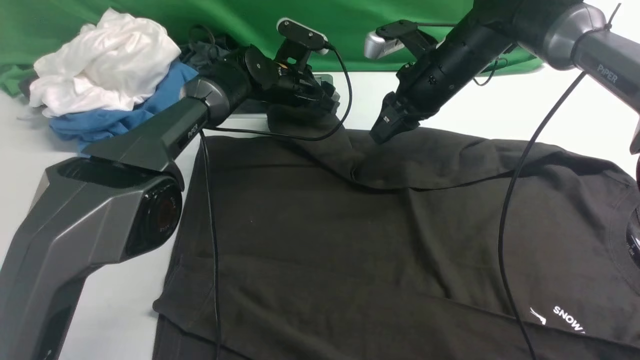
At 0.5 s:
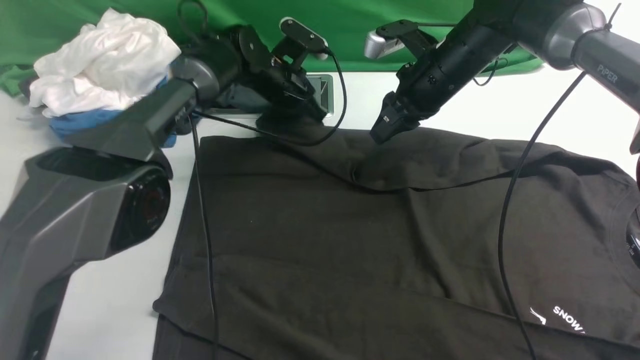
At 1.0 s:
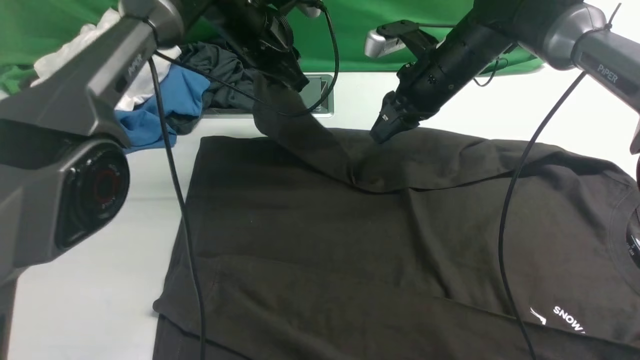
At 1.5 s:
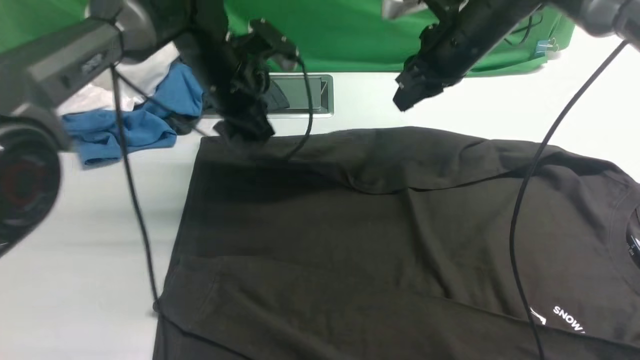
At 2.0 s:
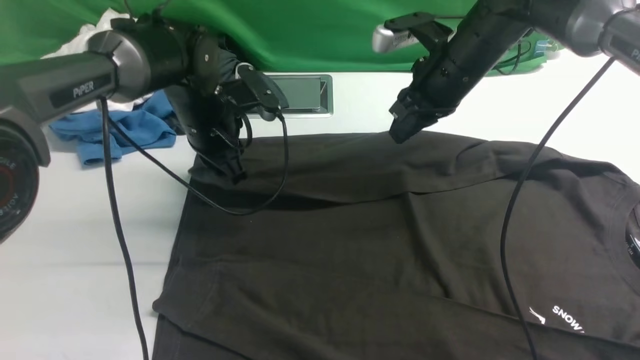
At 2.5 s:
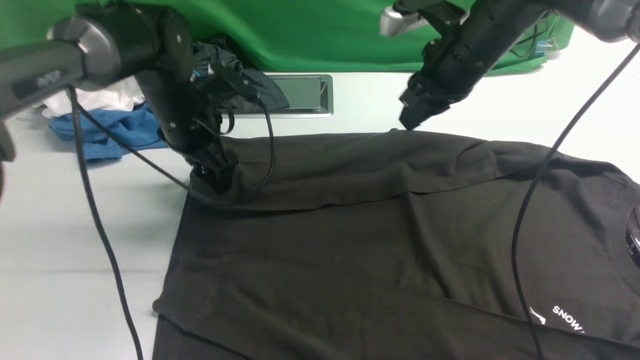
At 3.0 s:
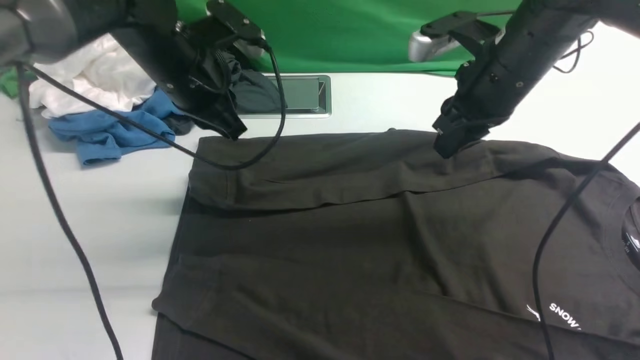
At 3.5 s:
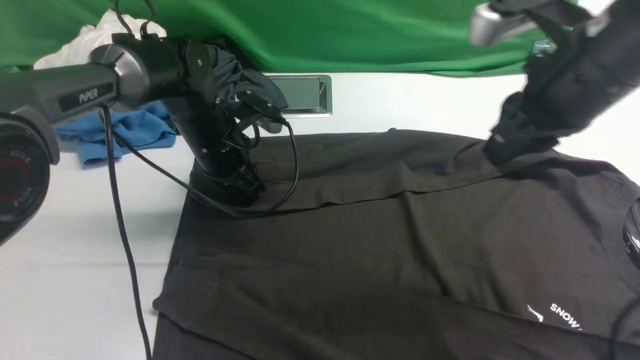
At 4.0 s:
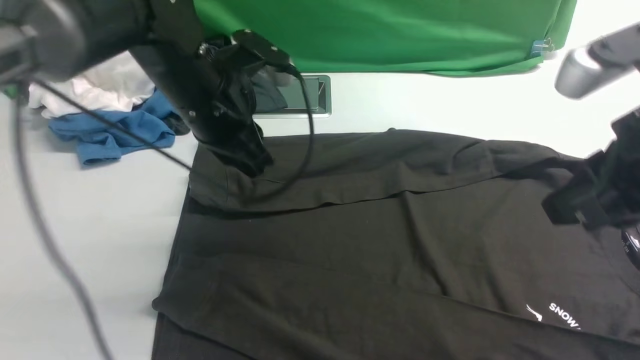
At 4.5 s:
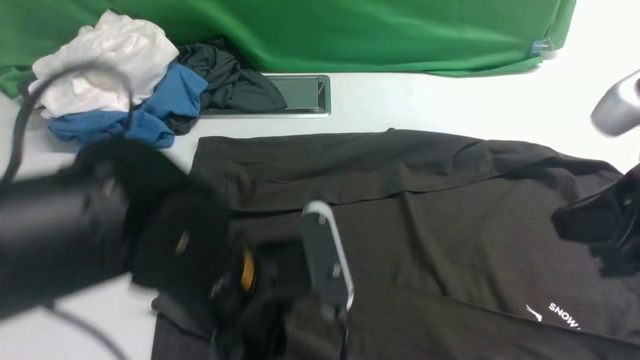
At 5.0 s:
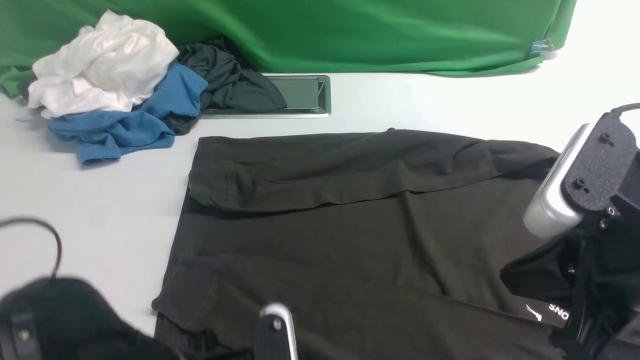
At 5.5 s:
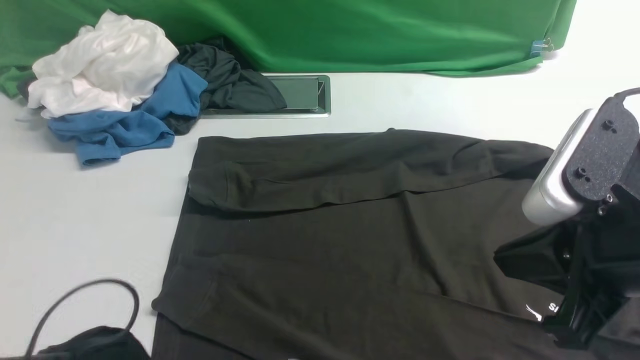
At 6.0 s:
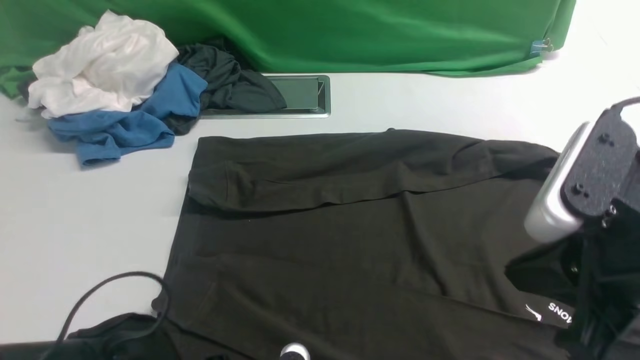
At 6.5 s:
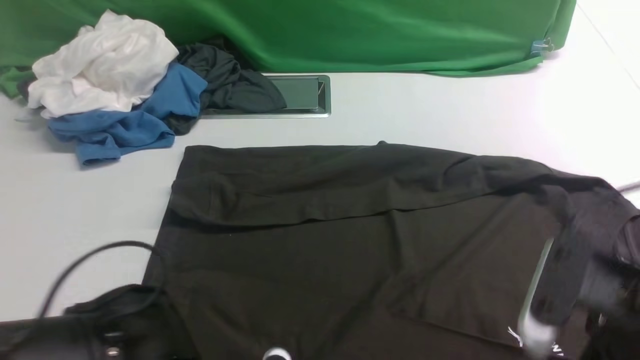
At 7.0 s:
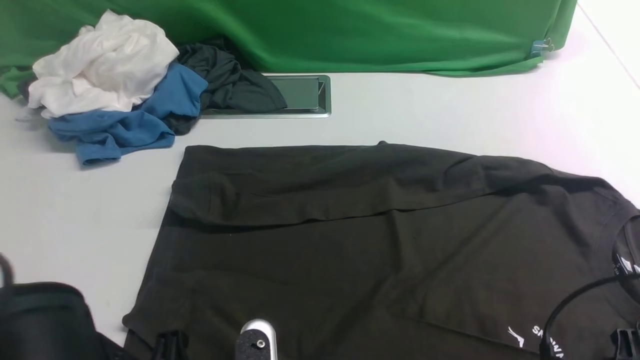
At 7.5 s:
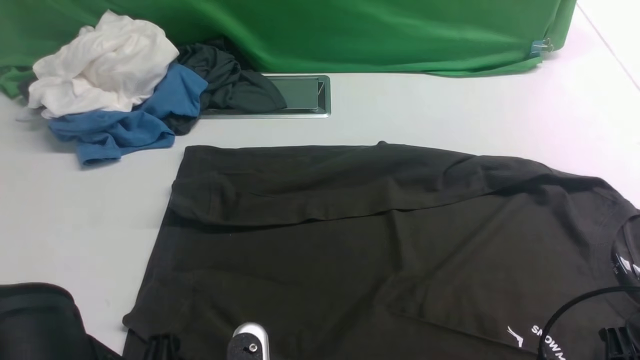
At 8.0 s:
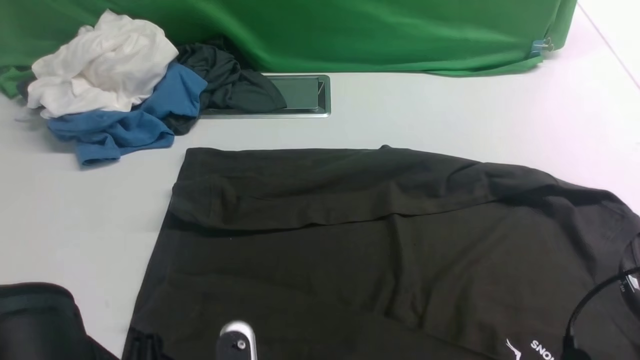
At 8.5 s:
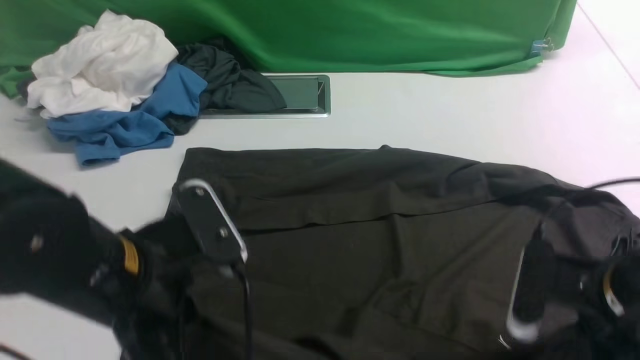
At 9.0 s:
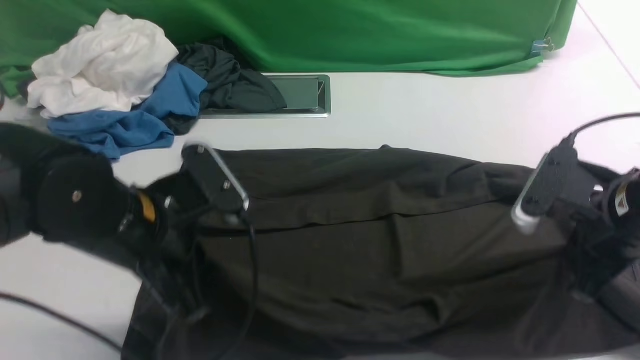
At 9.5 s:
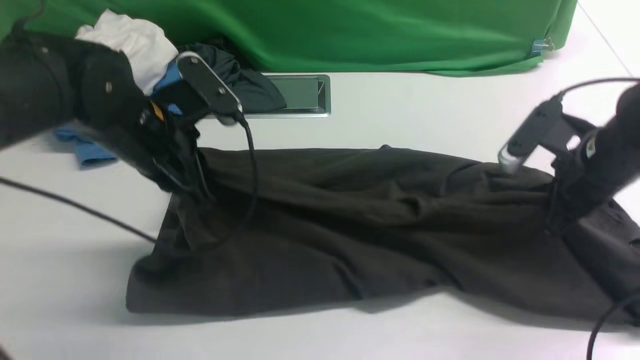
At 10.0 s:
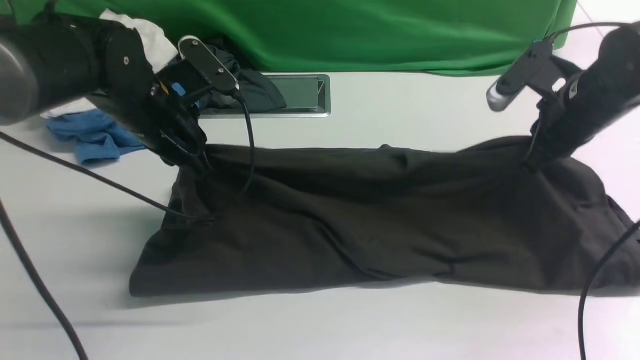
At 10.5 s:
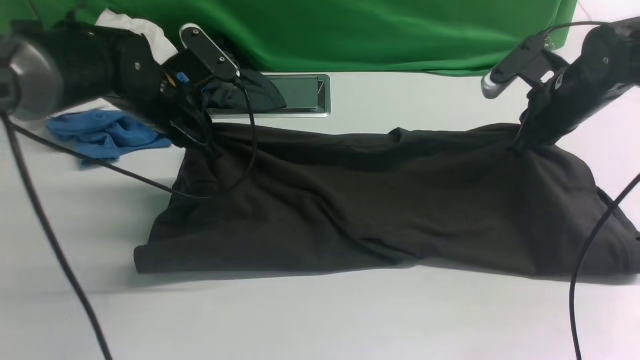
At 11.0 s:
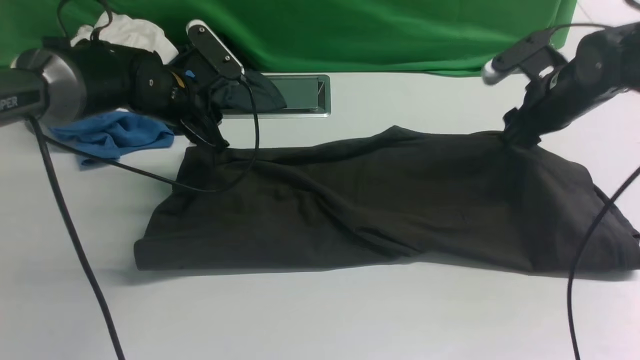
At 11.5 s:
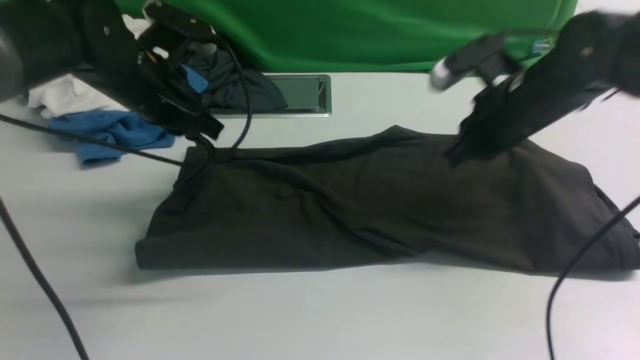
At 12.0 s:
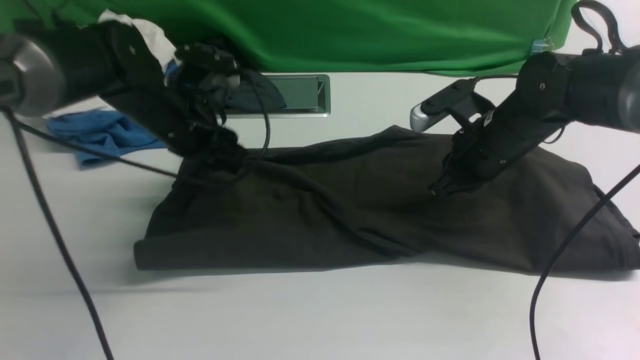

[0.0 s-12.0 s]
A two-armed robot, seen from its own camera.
Step, 1.0 to 3.5 s: use the left arm to drag and drop the cuff onto the cuff closest to the left arm.
Step, 4.0 to 8.5 s: use both arms simultaneously to clamp the lower edge of the clothing fabric.
Step, 9.0 to 11.0 s: use both arms to drag the lower edge of the fabric forward and fold it over the upper edge.
0.0 to 2.0 s: The left gripper goes some 15 cm backward, to the left and upward, and closes up.
2.0 to 4.0 s: The left gripper swings up and down, about 10 cm each way, with 2 reversals, and closes; the right gripper is displaced backward by roughly 25 cm.
4.0 to 6.0 s: The left gripper shifts roughly 25 cm backward and downward, and opens and closes again; the right gripper heads backward, covering about 5 cm.
6.0 to 8.0 s: The left gripper shifts some 10 cm upward; the right gripper goes some 10 cm downward, and opens, then closes once more.
8.0 to 10.0 s: Both grippers travel together forward, some 25 cm.
10.0 to 12.0 s: The right gripper heads to the left, covering some 10 cm, and opens and closes again. The left gripper ends up some 5 cm from where it was, and opens up.

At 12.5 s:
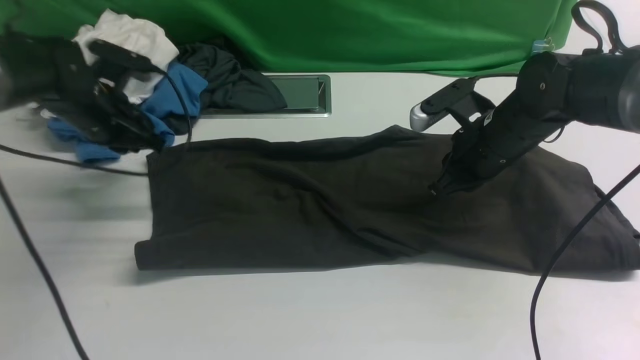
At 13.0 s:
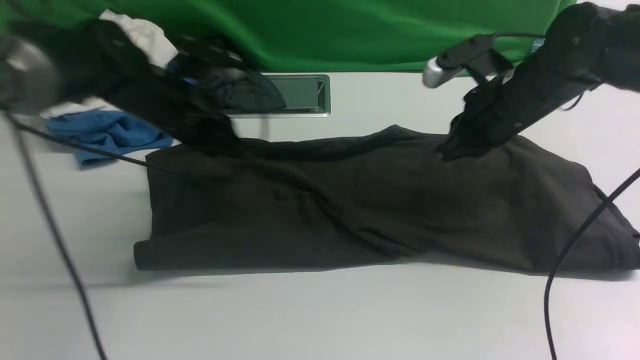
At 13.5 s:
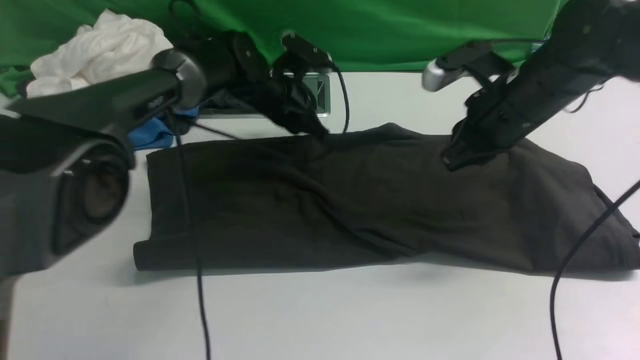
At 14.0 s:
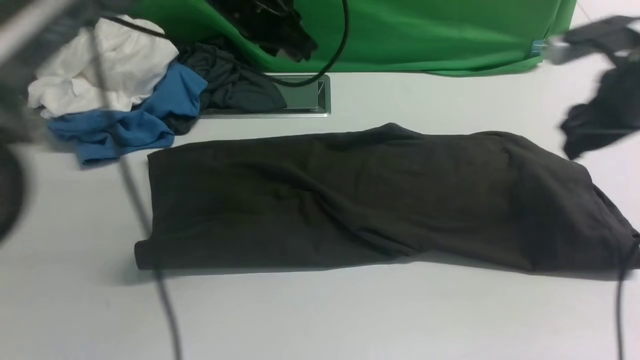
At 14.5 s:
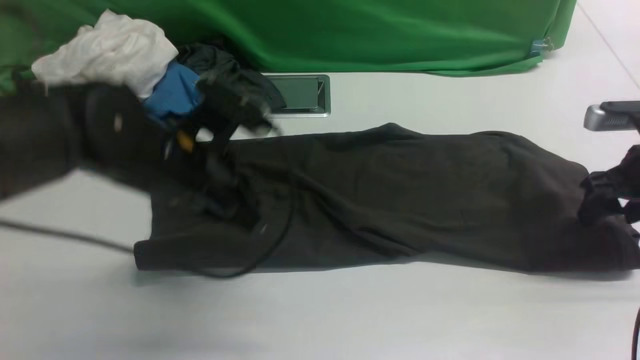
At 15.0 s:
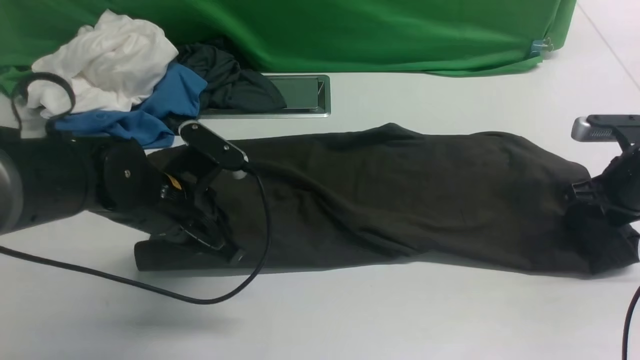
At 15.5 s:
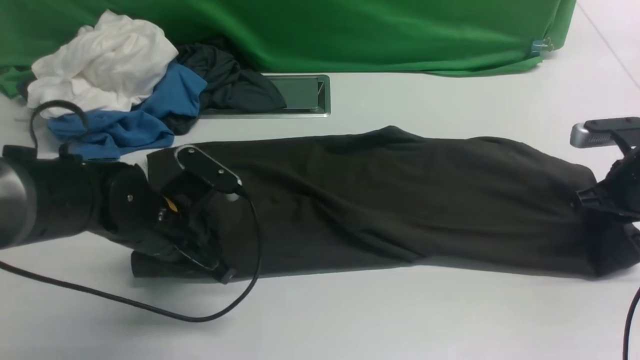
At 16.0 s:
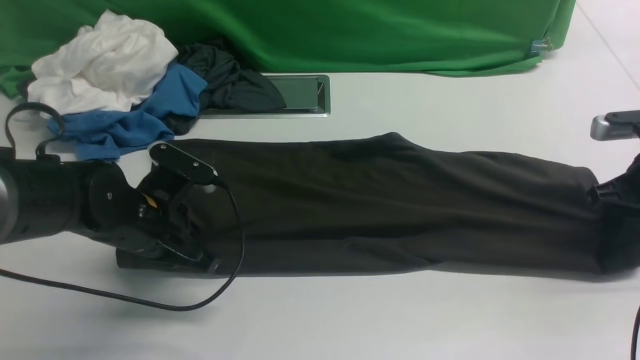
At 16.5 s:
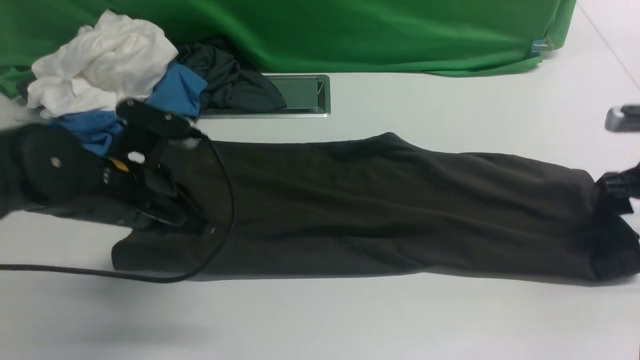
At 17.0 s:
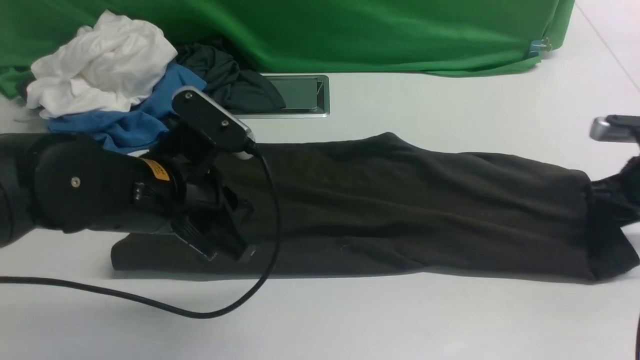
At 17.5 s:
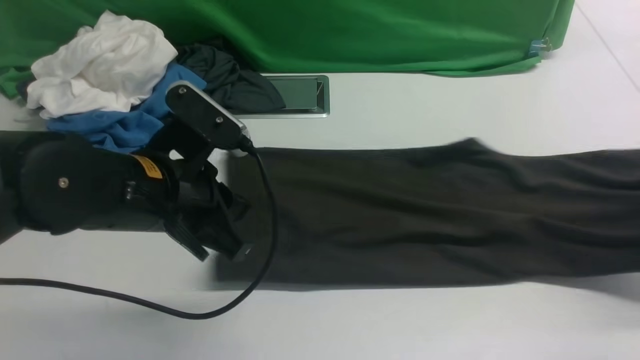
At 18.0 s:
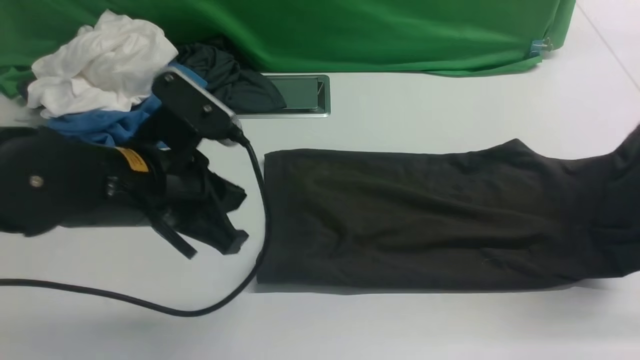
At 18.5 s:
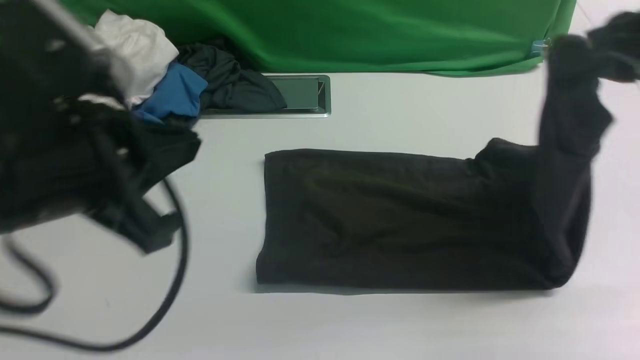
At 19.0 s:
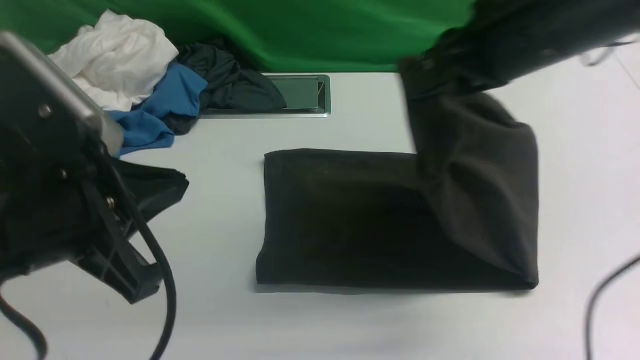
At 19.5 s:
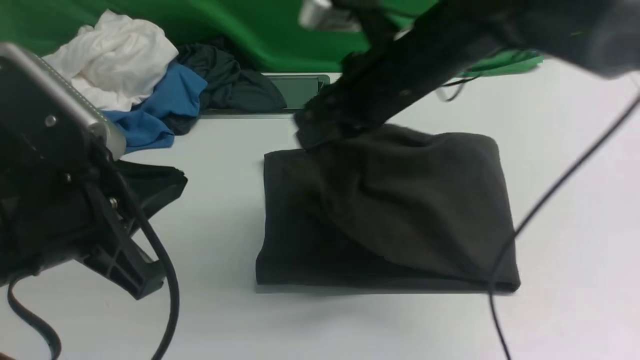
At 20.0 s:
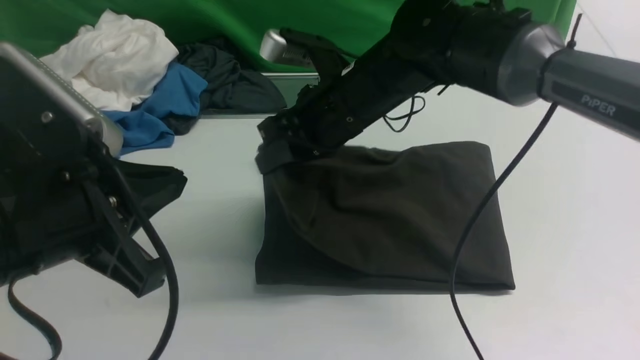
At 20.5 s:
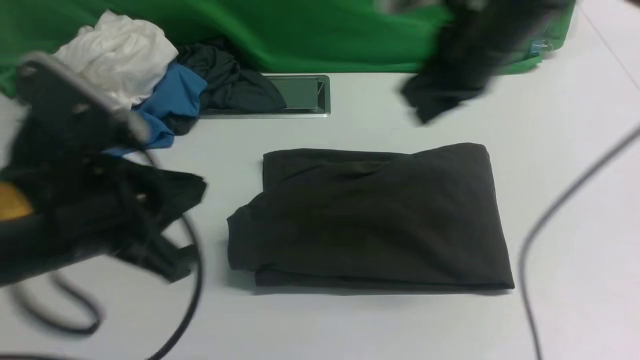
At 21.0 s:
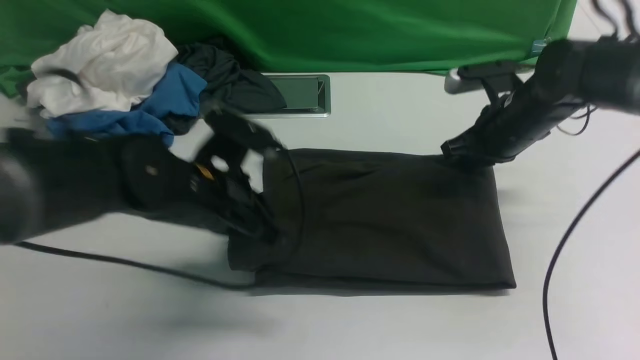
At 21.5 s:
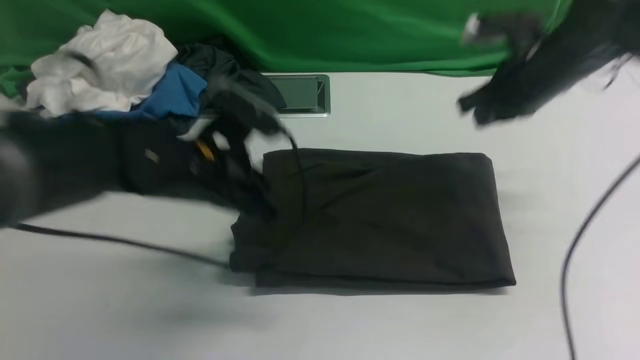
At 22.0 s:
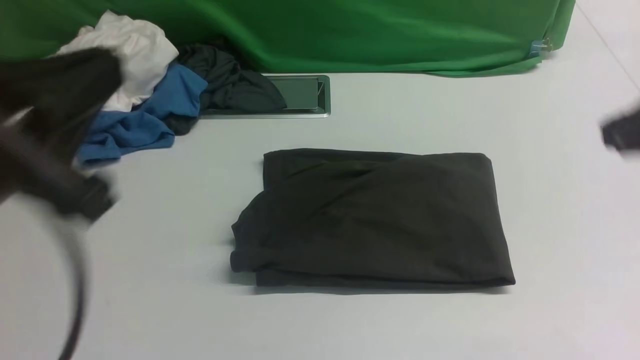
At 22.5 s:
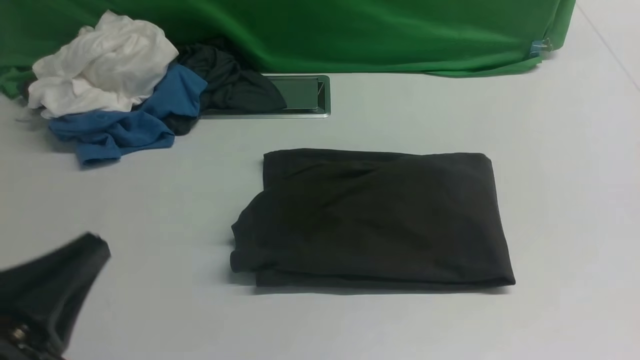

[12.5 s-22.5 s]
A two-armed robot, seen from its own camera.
Step, 12.5 to 17.0 s: use the right arm to clamp the right edge of the fabric.
Step, 17.5 to 20.5 s: use the right arm to drag the right edge of the fabric to the left and folds it over the left edge.
12.5 to 14.5 s: The left gripper moves to the right and backward, roughly 15 cm, while the right gripper heads to the right, covering roughly 15 cm, and opens its fingers.
14.5 to 16.5 s: The right gripper closes and opens again; the left gripper reaches some 10 cm downward, then returns.
16.5 to 18.5 s: The right gripper goes roughly 25 cm upward and to the left, and closes; the left gripper is displaced upward and backward by about 15 cm.
18.5 to 20.5 s: The right gripper goes roughly 15 cm to the left, forward and downward; the left gripper ends up some 5 cm from where it was.
20.5 to 22.5 s: The right gripper moves backward and to the right, some 30 cm; the left gripper moves backward, to the left and downward, roughly 15 cm.
